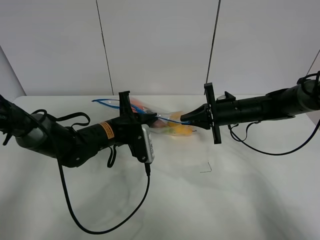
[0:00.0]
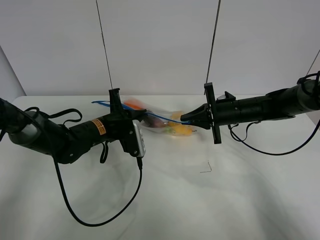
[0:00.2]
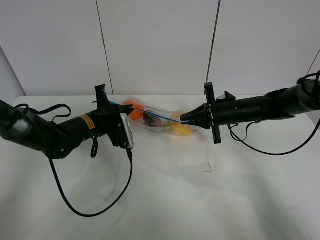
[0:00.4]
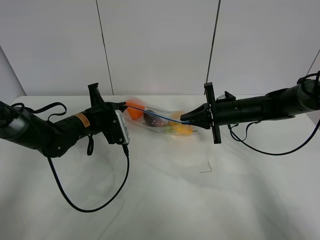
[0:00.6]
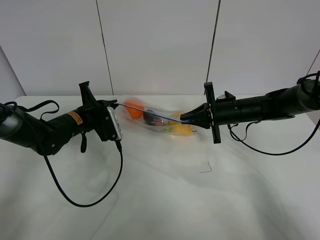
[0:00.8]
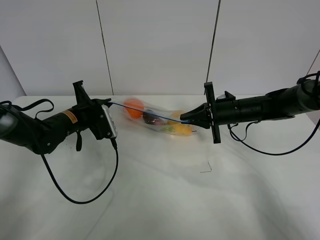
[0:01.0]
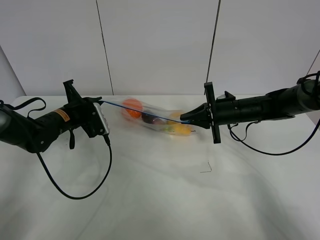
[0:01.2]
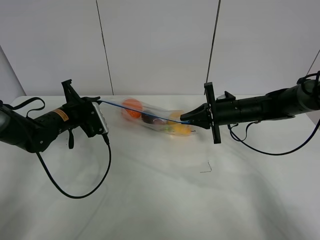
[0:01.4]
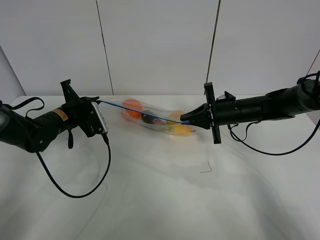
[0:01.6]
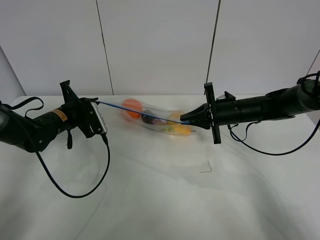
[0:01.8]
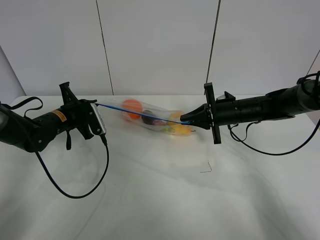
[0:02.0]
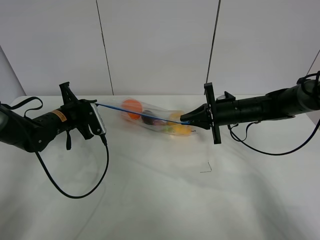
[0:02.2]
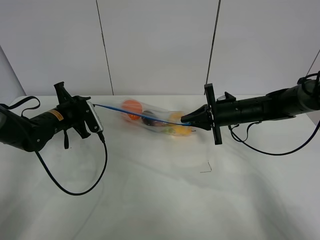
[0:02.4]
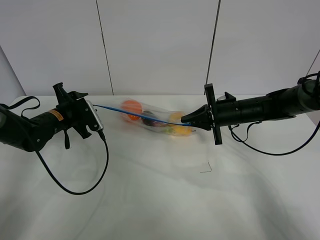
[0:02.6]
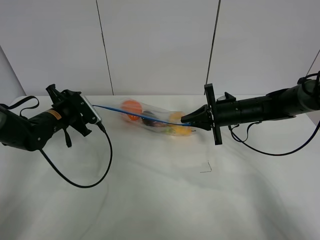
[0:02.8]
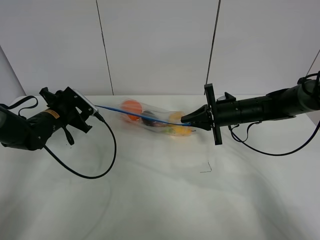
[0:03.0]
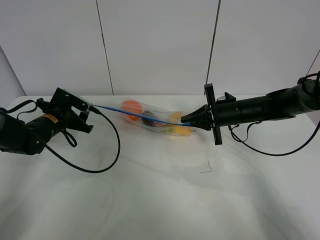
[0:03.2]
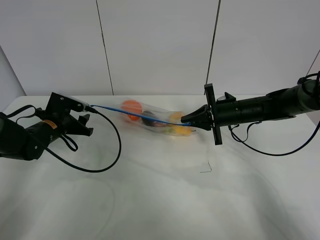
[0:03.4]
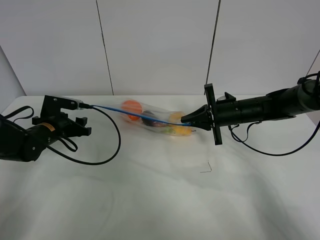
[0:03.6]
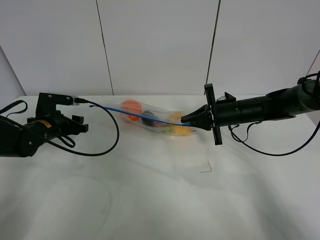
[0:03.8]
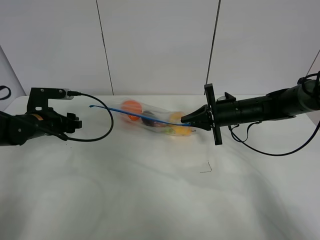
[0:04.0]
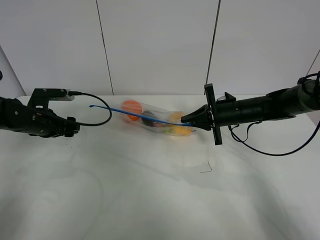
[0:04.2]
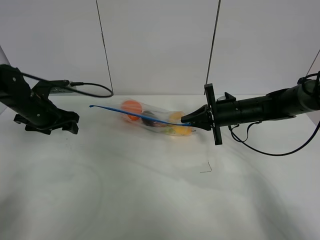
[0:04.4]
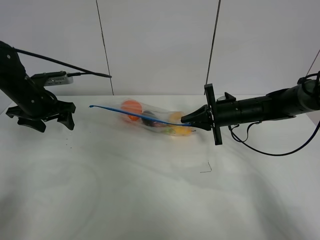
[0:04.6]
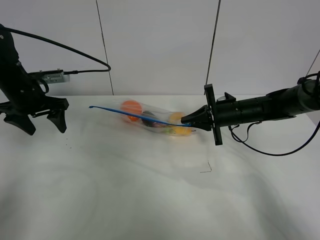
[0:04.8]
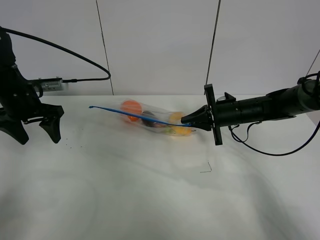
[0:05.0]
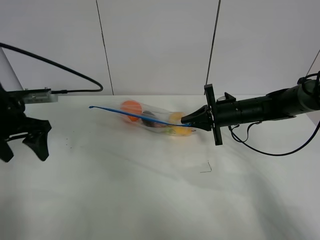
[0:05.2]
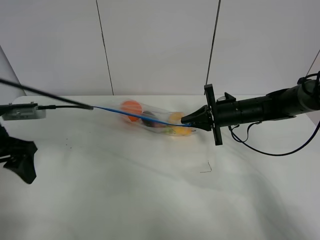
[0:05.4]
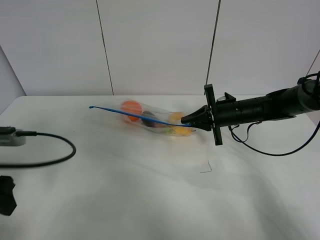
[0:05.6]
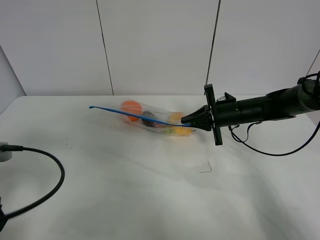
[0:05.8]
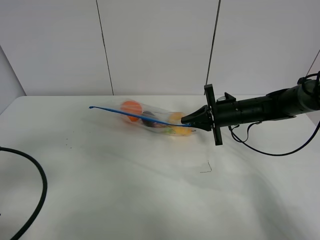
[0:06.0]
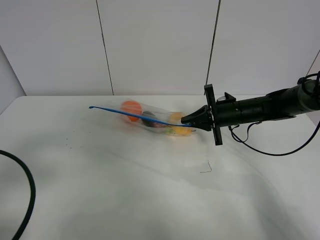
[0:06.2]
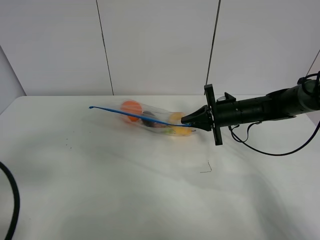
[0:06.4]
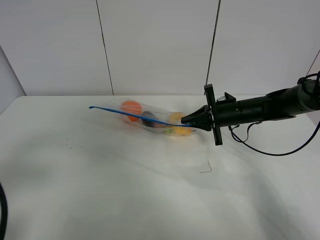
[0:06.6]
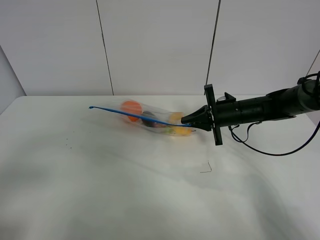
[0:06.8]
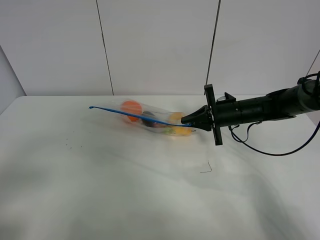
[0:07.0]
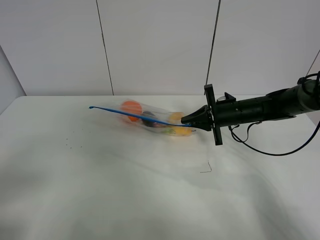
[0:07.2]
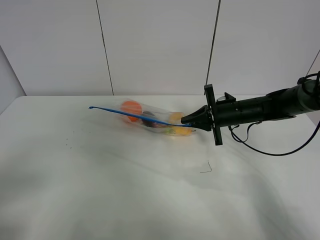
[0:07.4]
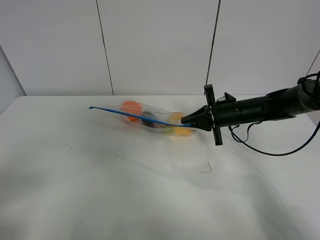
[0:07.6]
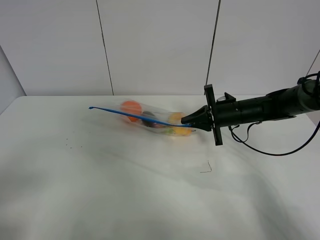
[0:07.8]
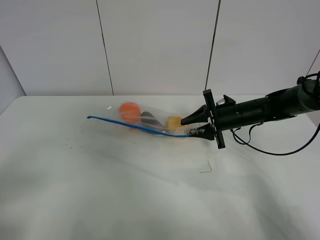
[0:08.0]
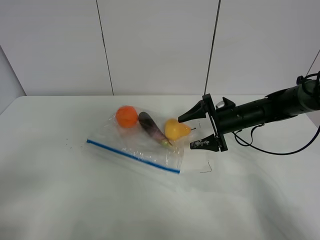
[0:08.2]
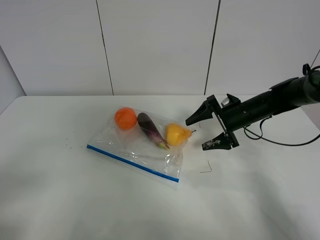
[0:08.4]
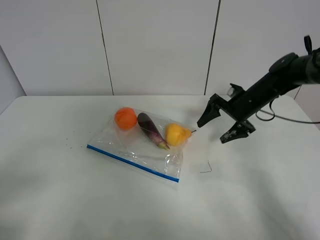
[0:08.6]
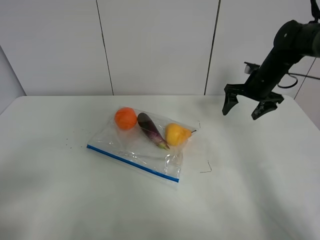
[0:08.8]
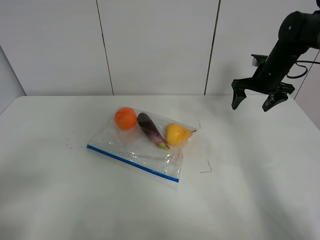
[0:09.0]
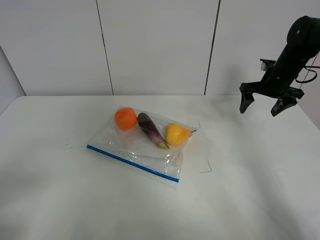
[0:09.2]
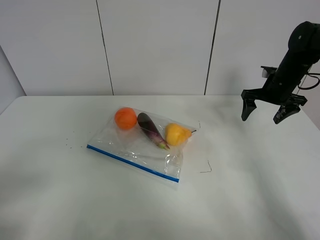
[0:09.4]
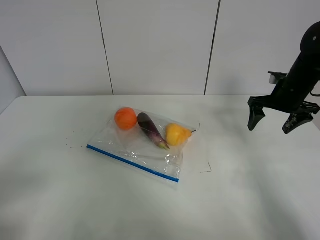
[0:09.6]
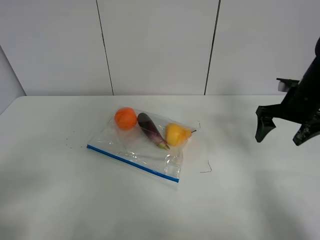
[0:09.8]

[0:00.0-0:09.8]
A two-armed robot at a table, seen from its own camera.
Step, 0:00.0 to 0:03.0: Pull the fruit bag with left gripper.
0:00.0 to 0:01.4: The left gripper travels to the left by approximately 10 cm.
0:01.4 to 0:02.8: The left gripper opens its fingers.
0:04.2 to 0:05.6: The left gripper heads backward and upward, covering approximately 20 cm.
0:05.6 to 0:07.0: The left gripper goes some 15 cm backward.
0:07.0 to 0:08.4: The right gripper opens up.
0:08.4 to 0:09.8: The right gripper moves upward, to the right and backward, approximately 15 cm.

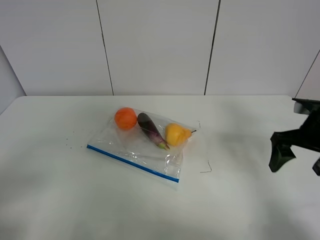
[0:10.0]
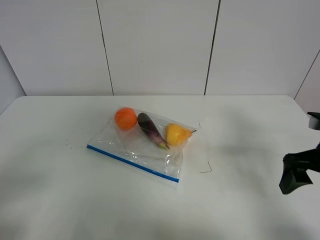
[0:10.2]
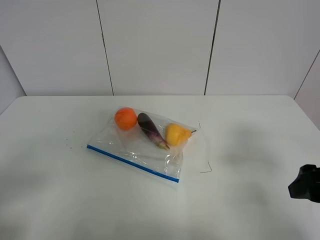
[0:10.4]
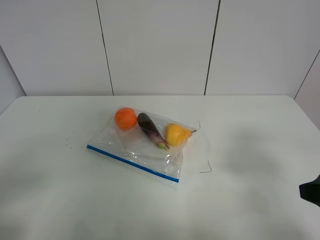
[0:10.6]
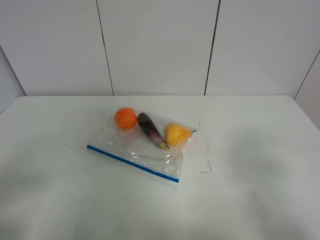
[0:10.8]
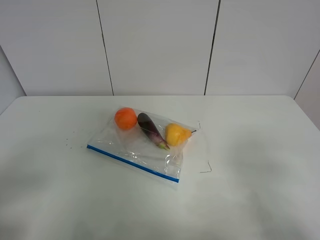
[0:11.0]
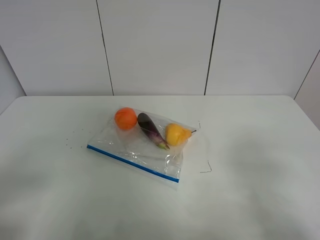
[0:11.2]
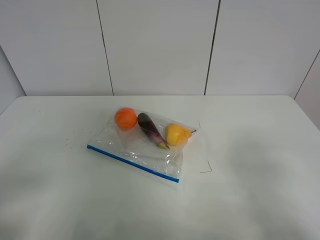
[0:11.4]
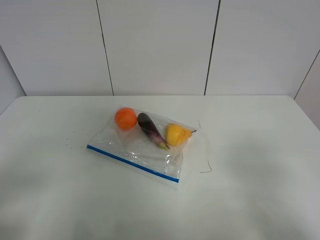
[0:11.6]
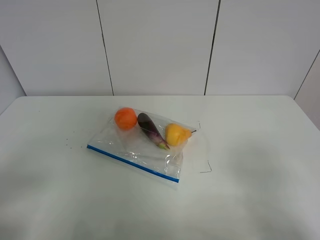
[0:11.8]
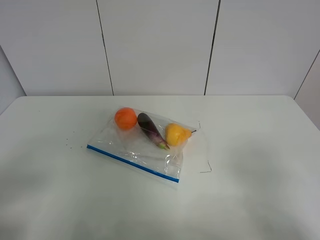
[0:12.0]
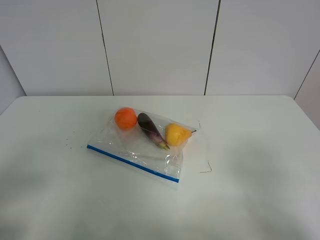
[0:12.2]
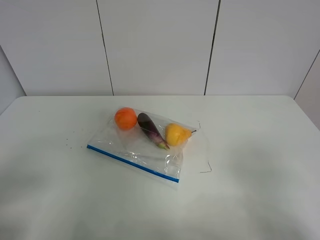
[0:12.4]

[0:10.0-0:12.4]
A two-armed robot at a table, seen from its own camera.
0:10.0 to 0:11.2: The right gripper shifts roughly 20 cm backward.
